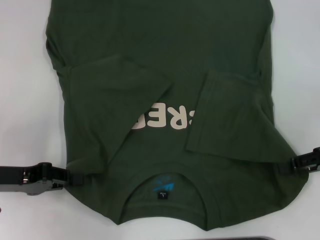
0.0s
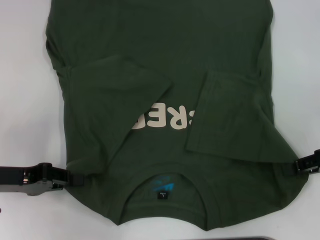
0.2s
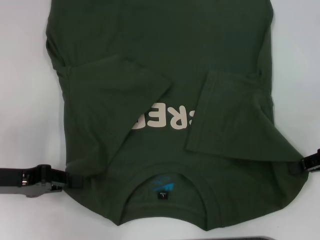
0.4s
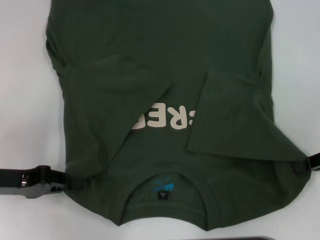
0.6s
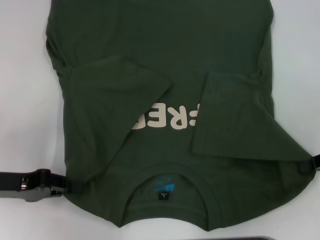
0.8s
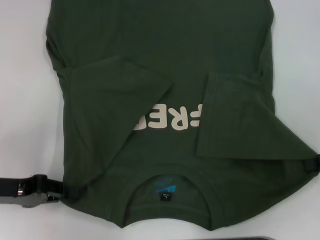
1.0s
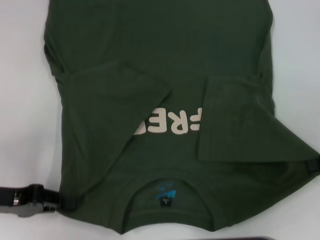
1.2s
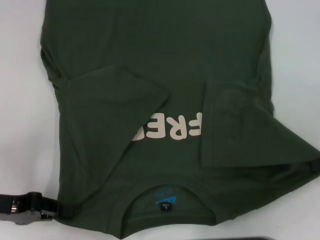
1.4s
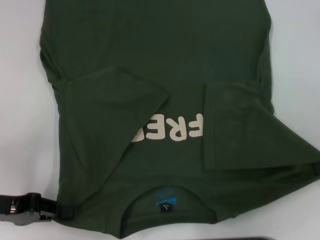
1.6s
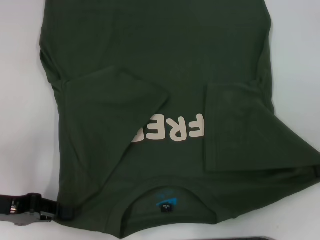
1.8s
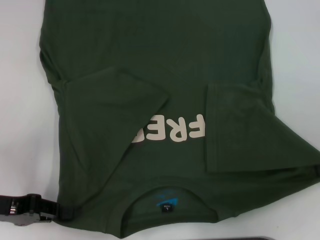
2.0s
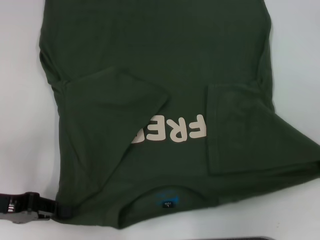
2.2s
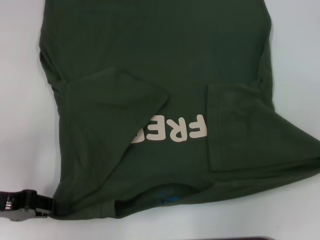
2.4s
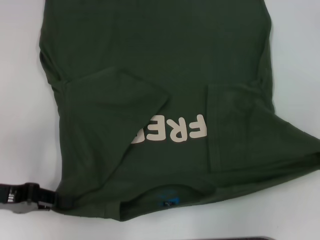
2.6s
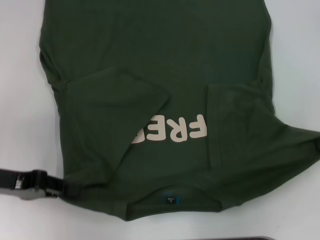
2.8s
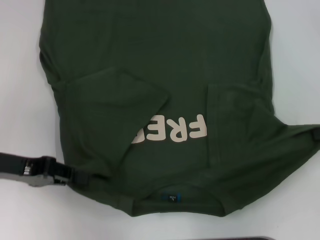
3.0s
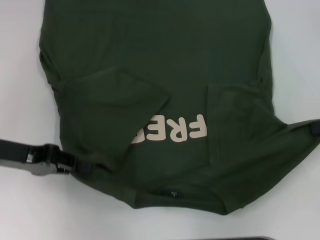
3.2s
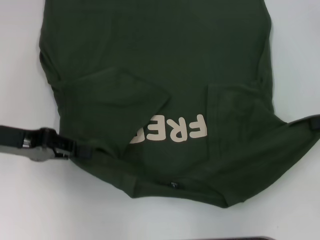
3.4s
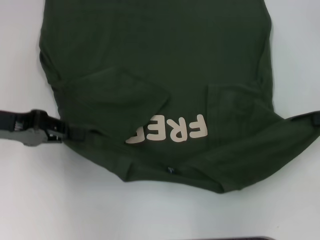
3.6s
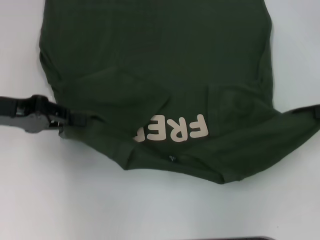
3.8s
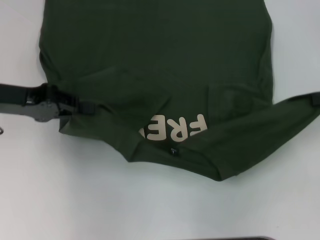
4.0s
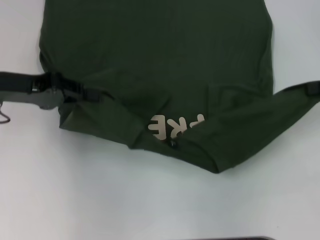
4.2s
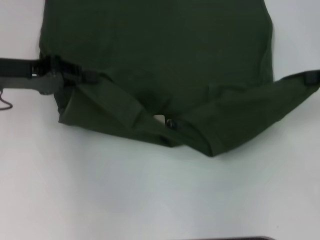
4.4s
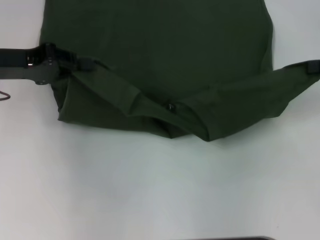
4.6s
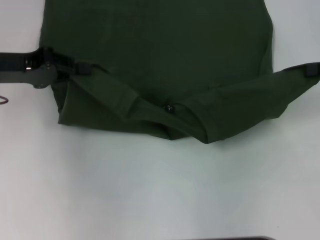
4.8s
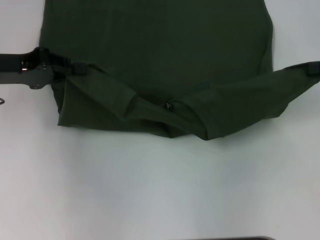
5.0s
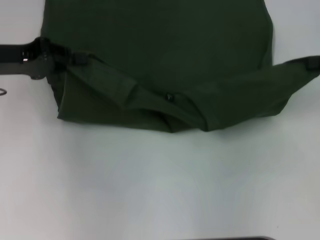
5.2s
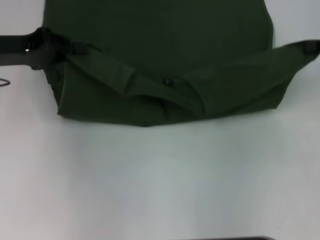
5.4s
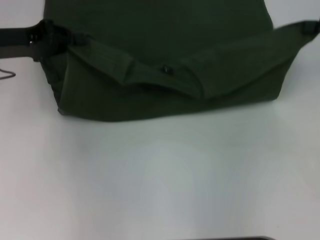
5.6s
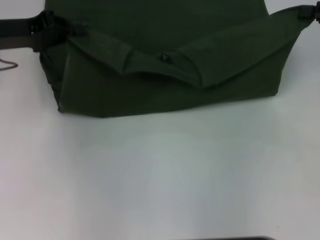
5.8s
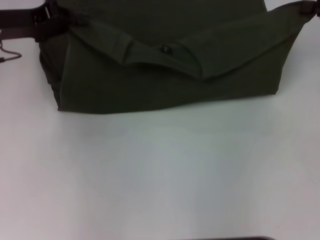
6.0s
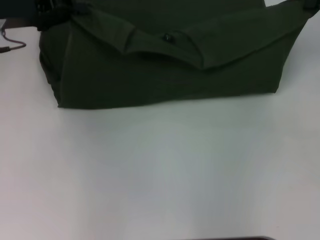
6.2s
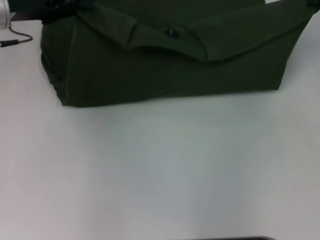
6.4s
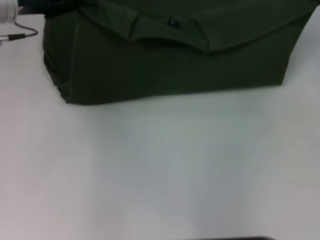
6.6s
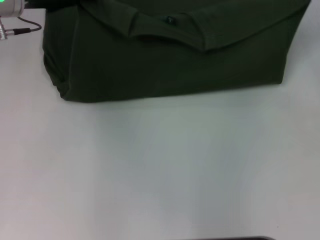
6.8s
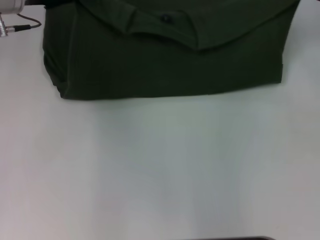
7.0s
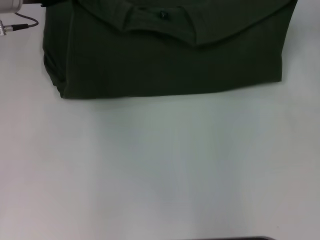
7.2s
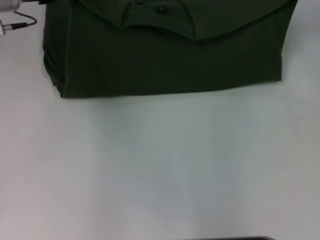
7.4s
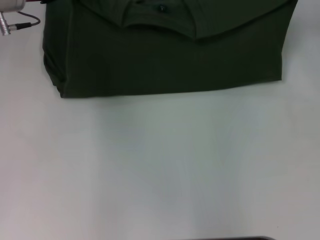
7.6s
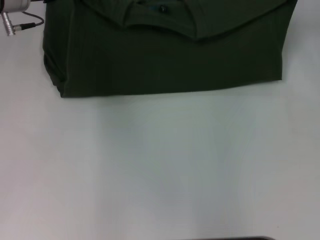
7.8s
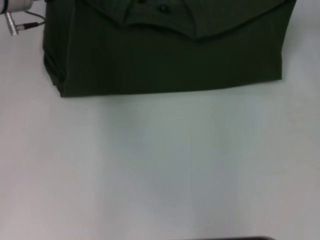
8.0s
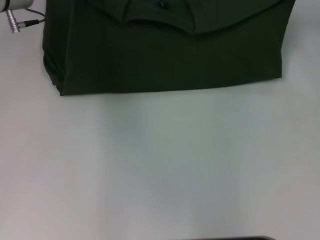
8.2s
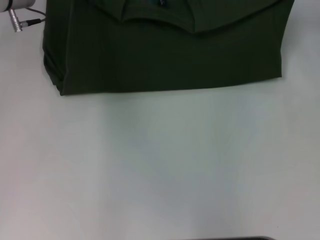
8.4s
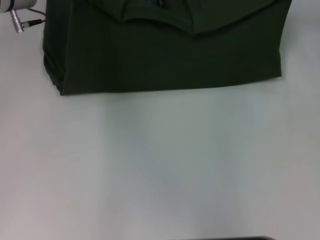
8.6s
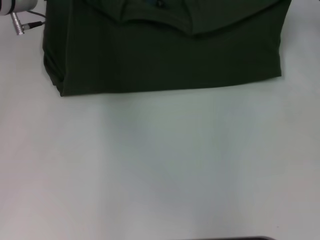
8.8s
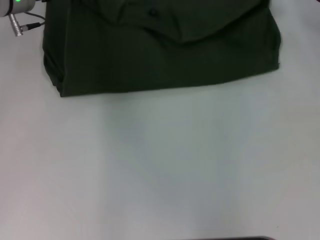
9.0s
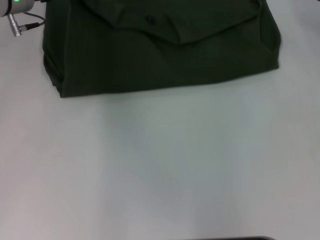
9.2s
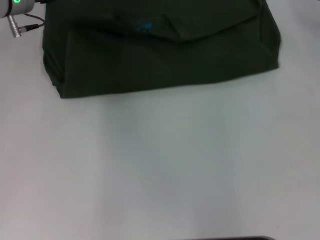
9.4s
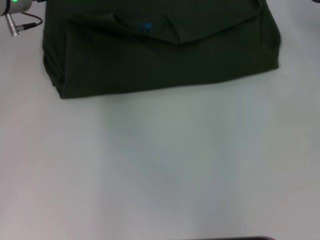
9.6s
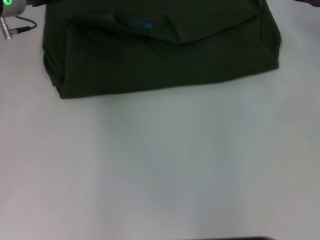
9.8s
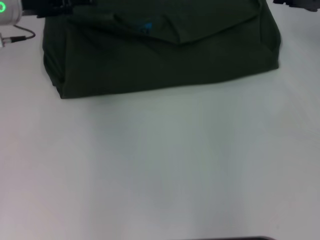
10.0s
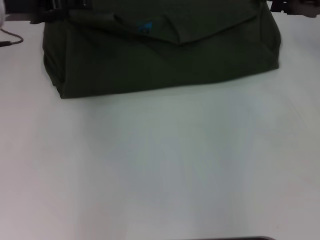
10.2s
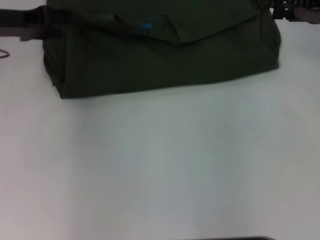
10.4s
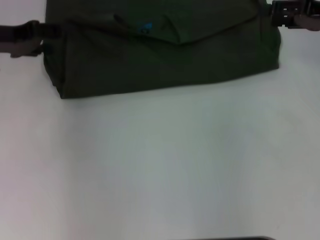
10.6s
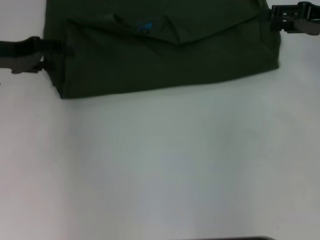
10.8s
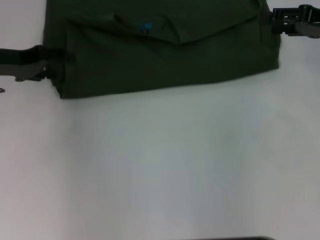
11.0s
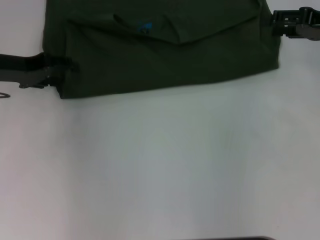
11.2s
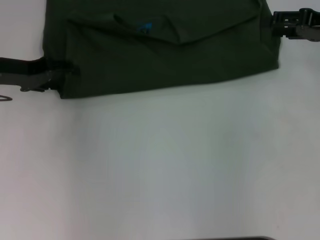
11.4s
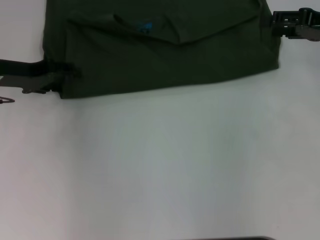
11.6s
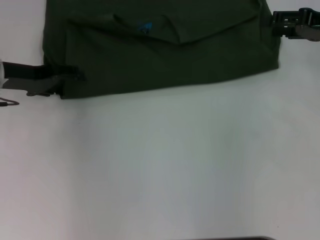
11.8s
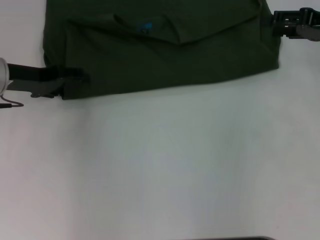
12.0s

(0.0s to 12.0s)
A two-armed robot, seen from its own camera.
Step, 1.6s - 9.8s: Fold the clothes with your left hand.
Step, 1.6s - 9.8s: Fold the clothes with your right hand.
0.0s - 1.6s: The right gripper closes.
1.6s - 3.0s: The left gripper travels forward by approximately 5 cm.
3.0s - 4.4s: The right gripper shifts by approximately 5 cm; the left gripper travels forward and upward by roughly 10 cm.
4.4s - 6.0s: The left gripper ends up some 5 cm from where it was.
6.0s - 7.6s: The left gripper travels forward by roughly 5 cm. The right gripper changes place by roughly 5 cm.
7.6s - 9.0s: The grippers move only a little.
9.0s - 10.4s: The right gripper opens its fingers; the left gripper heads to the left and backward, covering roughly 10 cm, and opens up.
10.4s - 12.0s: The left gripper heads downward, covering approximately 5 cm.

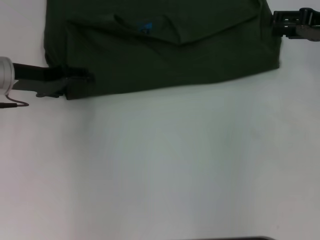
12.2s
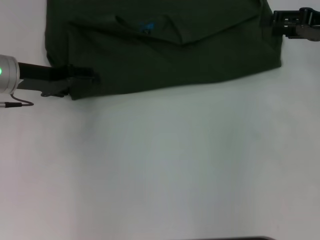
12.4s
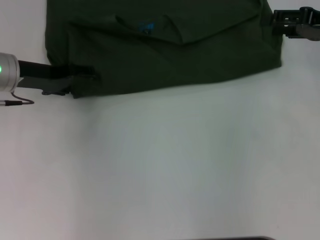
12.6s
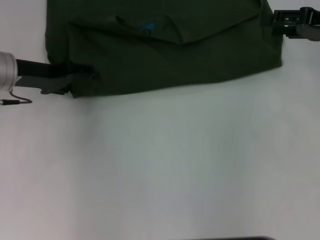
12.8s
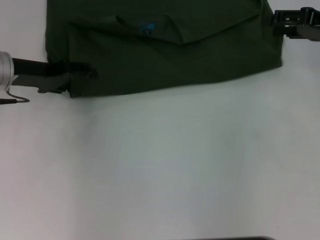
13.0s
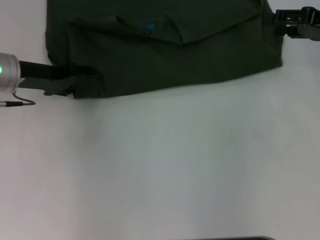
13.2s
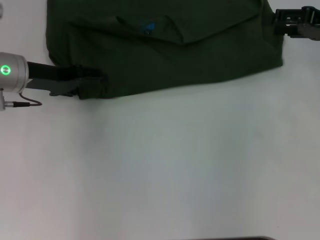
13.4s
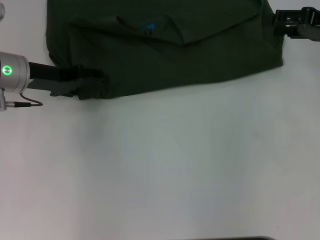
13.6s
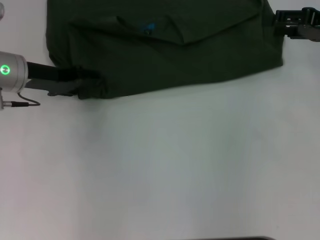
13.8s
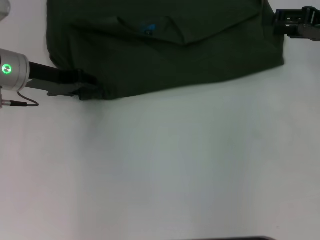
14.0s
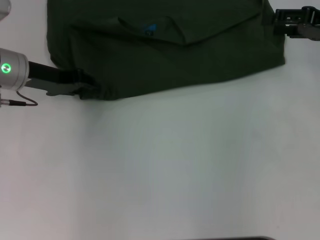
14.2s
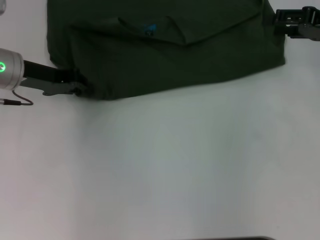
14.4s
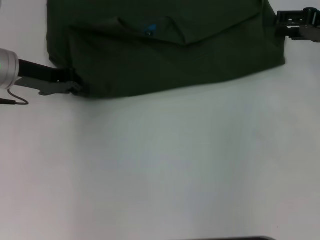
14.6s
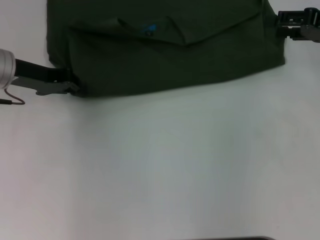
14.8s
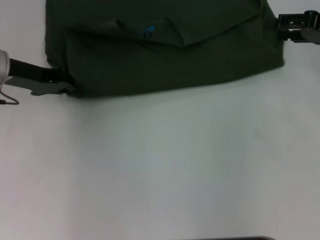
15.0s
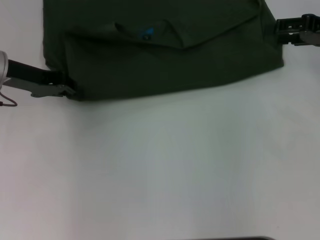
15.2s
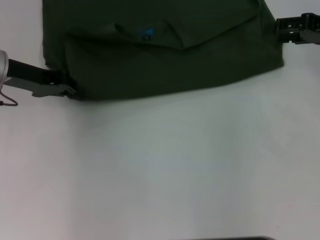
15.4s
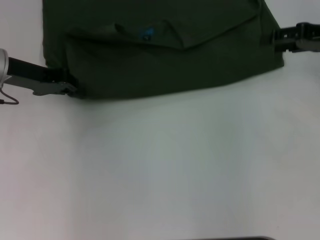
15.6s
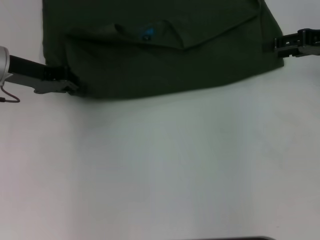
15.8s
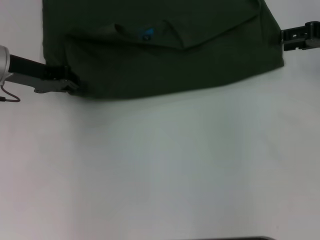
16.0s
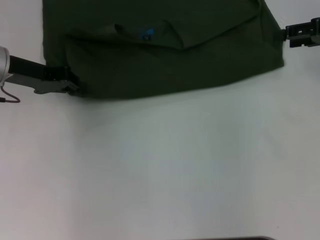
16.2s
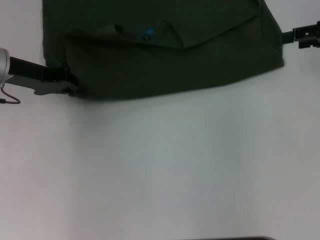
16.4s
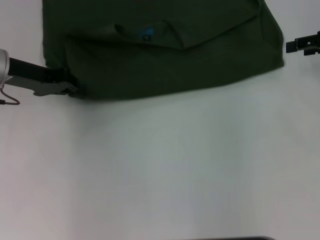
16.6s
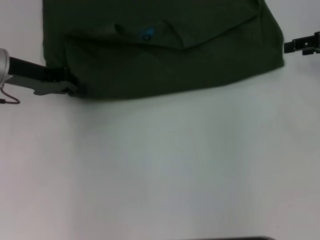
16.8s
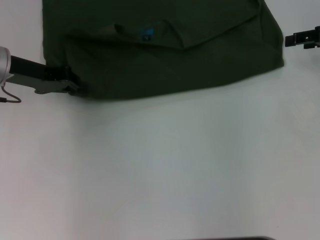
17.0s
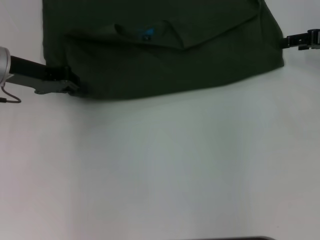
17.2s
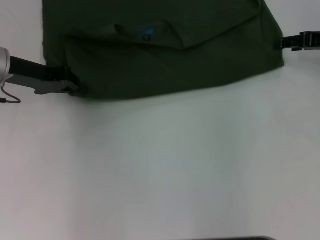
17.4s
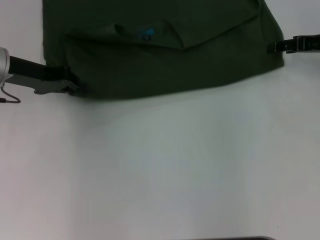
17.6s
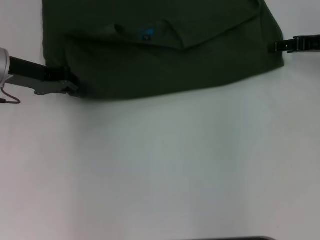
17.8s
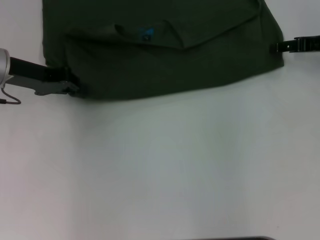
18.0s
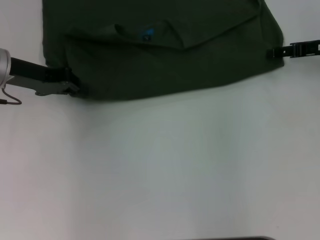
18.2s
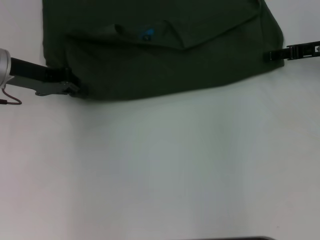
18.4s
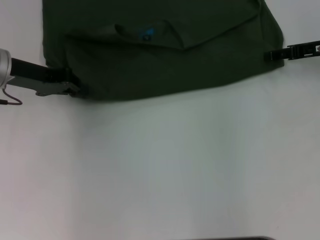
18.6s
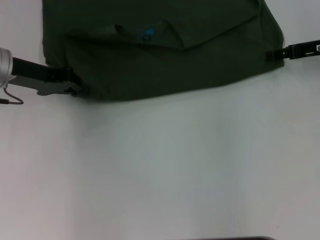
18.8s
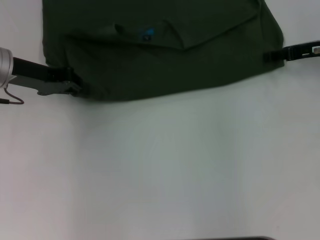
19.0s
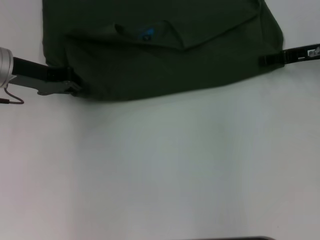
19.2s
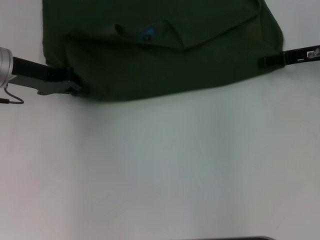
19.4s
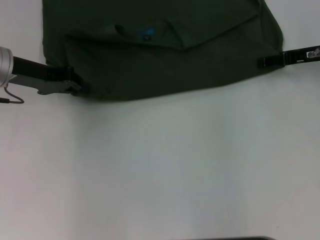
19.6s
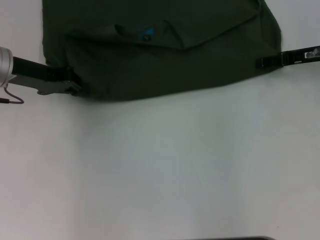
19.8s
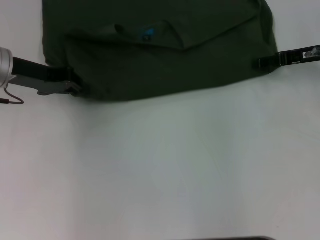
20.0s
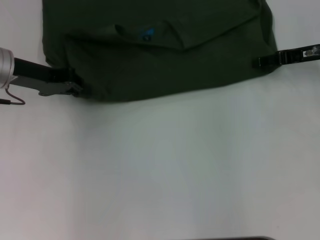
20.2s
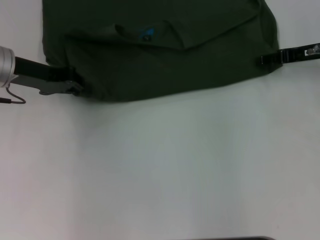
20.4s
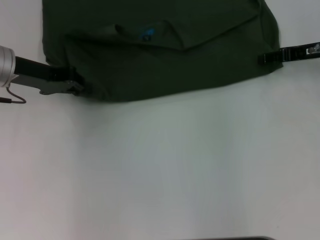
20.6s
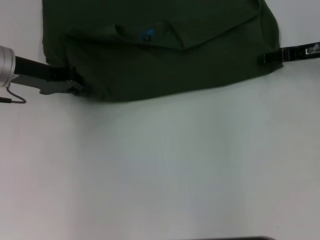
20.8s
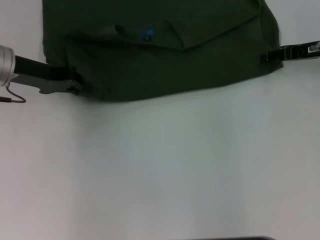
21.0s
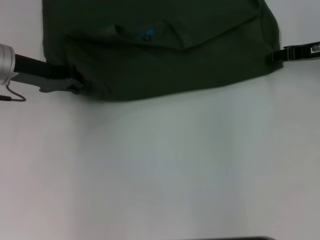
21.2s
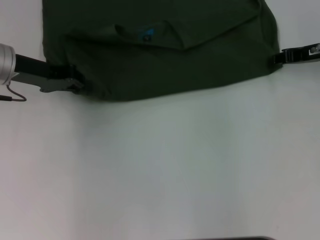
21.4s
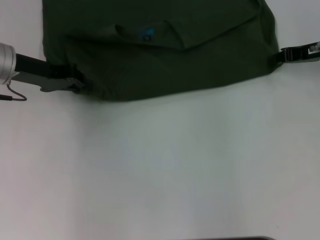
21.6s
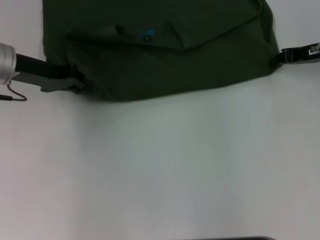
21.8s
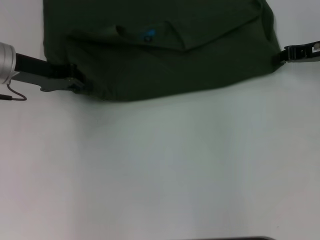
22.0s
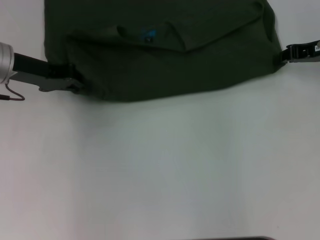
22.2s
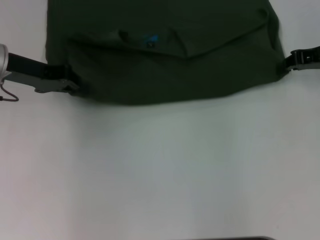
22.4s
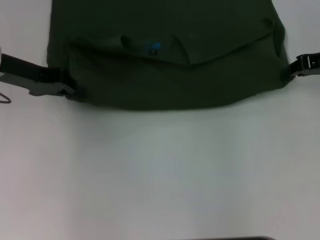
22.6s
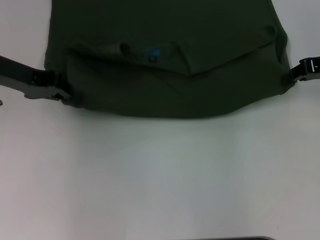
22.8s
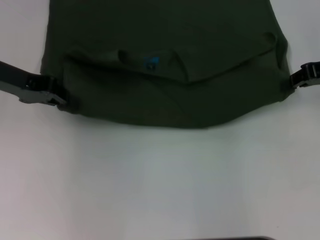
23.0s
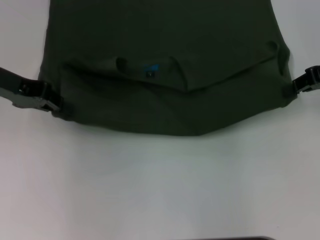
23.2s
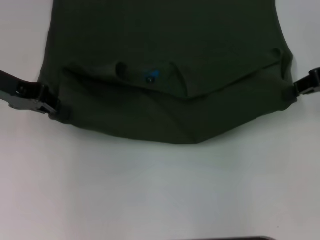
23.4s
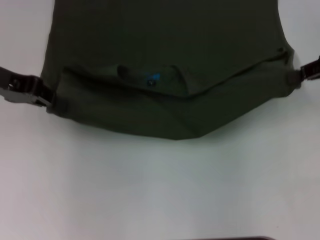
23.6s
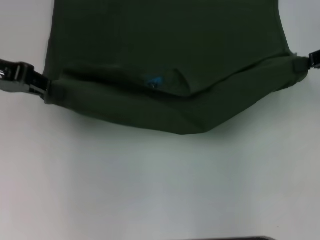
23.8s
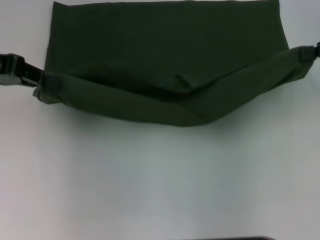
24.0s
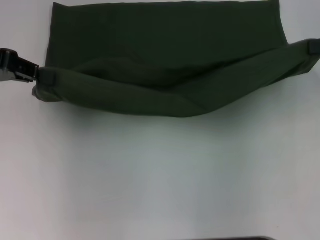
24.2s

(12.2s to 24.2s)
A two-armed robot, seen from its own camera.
12.2s - 13.8s: There are only small adjustments of the grippers.
13.8s - 15.2s: The left gripper closes.
15.2s - 16.6s: There are only small adjustments of the grippers.
16.6s - 18.2s: The right gripper ends up roughly 5 cm from where it was.
18.2s - 19.8s: There are only small adjustments of the grippers.
19.8s - 21.2s: Both grippers stay put.
21.2s - 22.6s: The right gripper closes.
22.6s - 24.2s: The right gripper shifts roughly 10 cm upward and backward. The left gripper goes roughly 5 cm upward.
